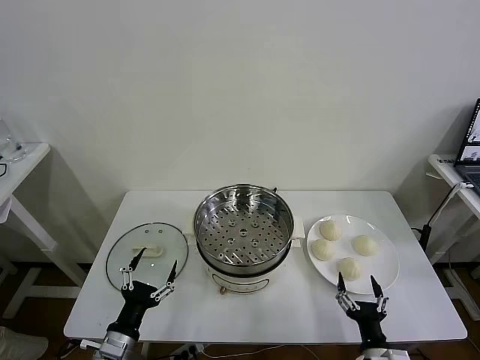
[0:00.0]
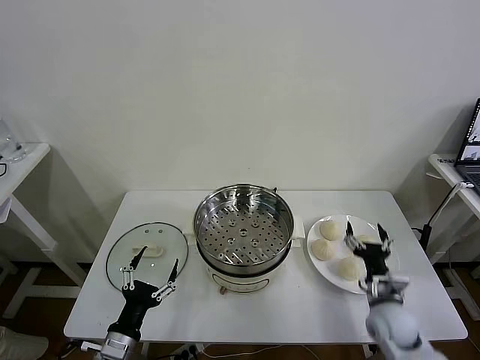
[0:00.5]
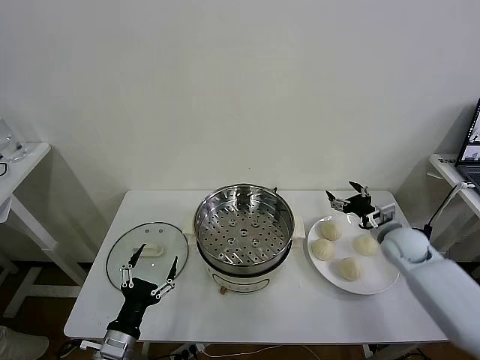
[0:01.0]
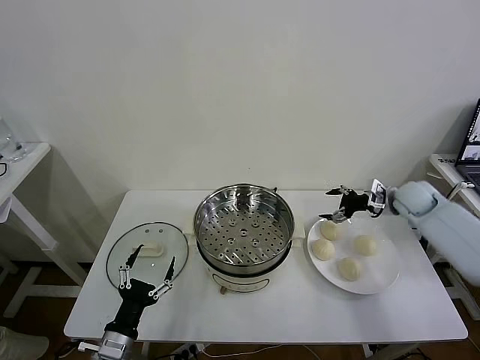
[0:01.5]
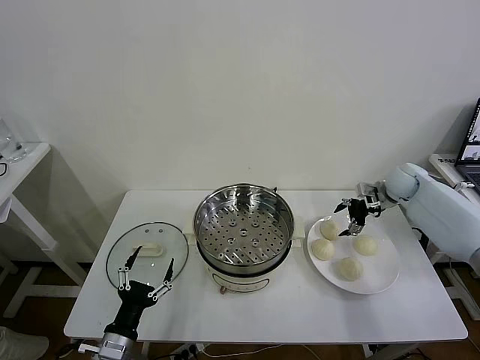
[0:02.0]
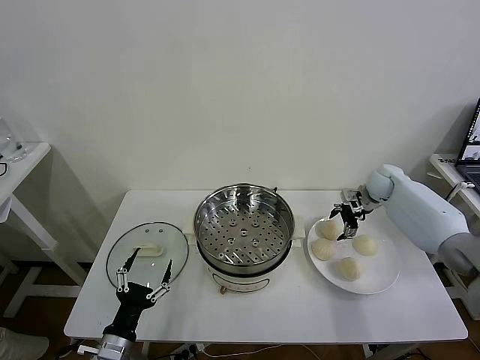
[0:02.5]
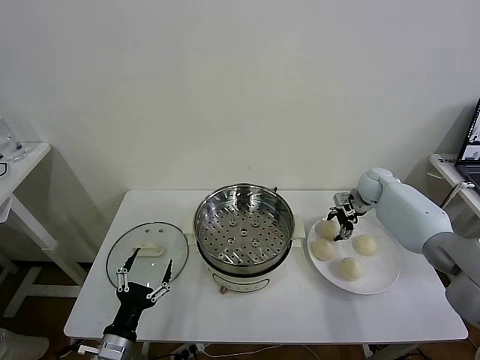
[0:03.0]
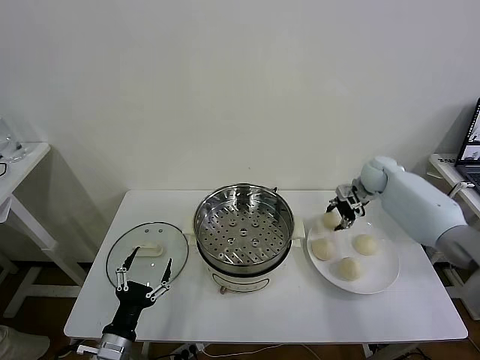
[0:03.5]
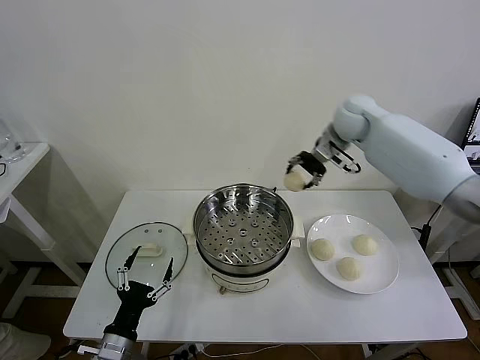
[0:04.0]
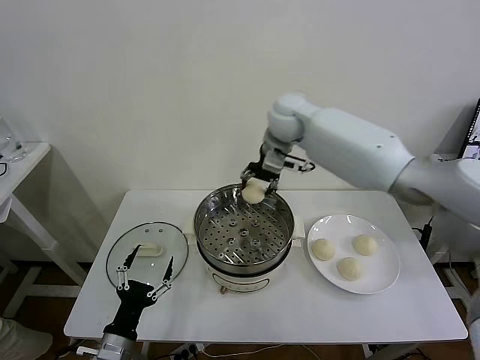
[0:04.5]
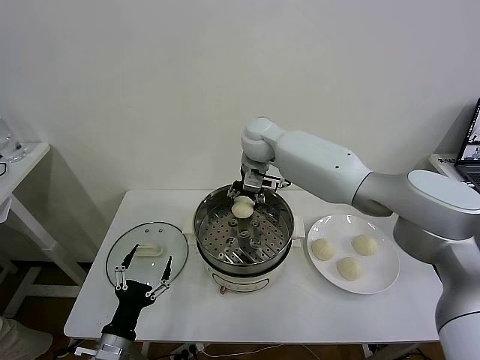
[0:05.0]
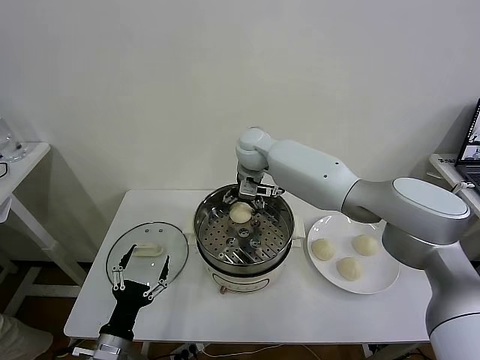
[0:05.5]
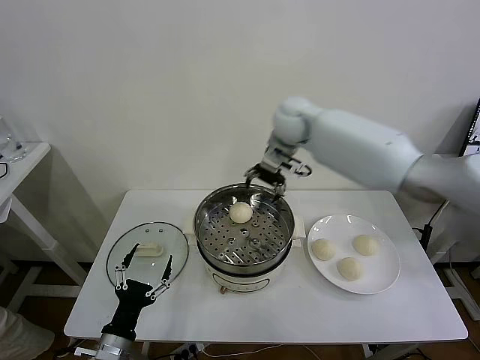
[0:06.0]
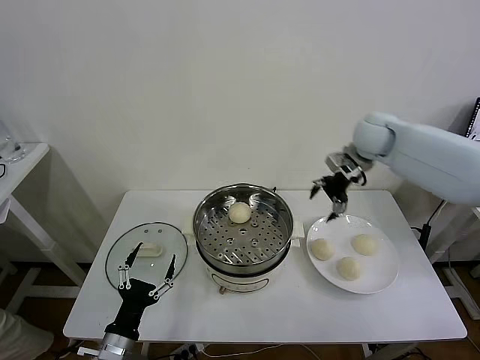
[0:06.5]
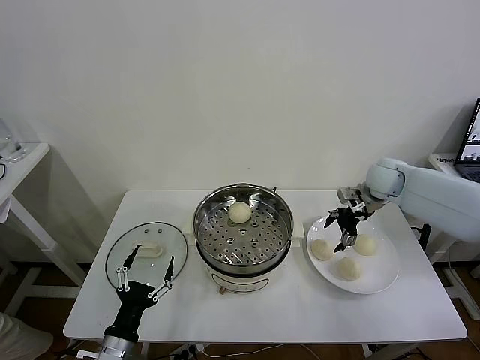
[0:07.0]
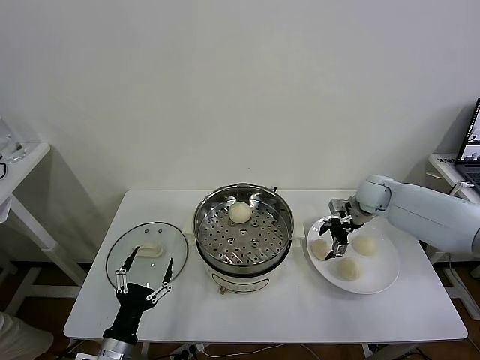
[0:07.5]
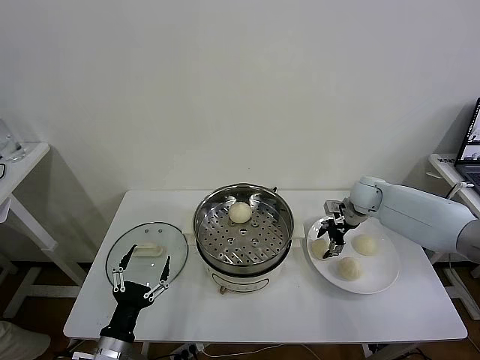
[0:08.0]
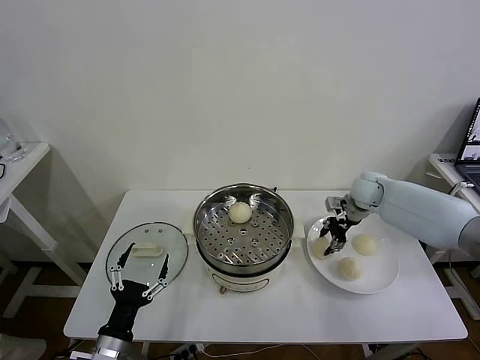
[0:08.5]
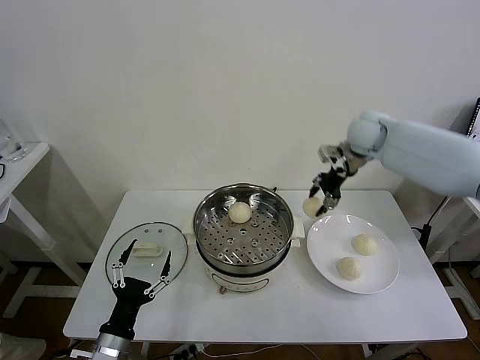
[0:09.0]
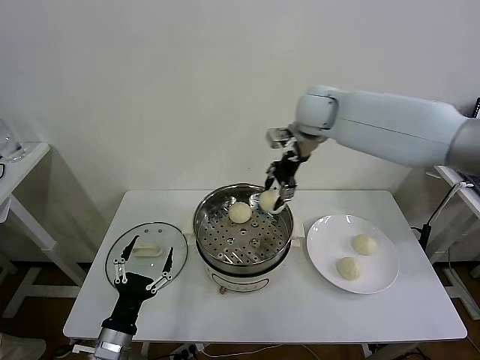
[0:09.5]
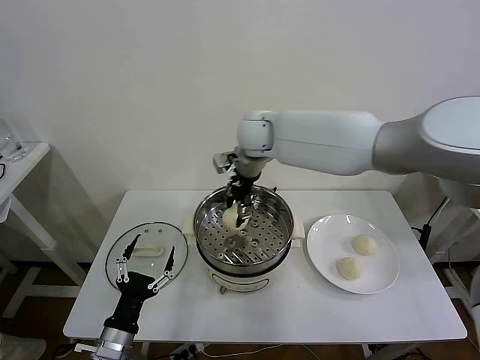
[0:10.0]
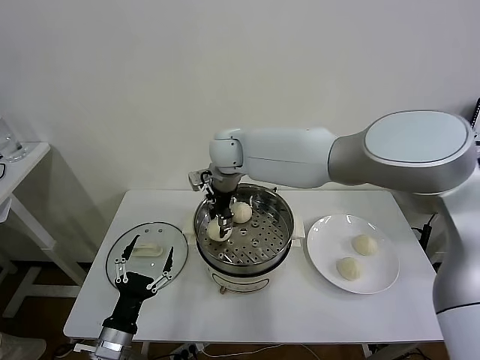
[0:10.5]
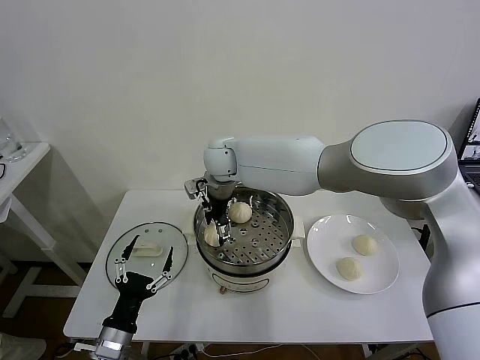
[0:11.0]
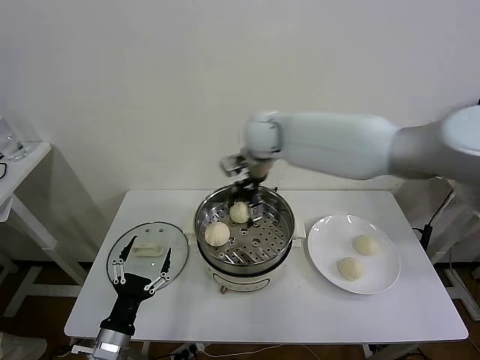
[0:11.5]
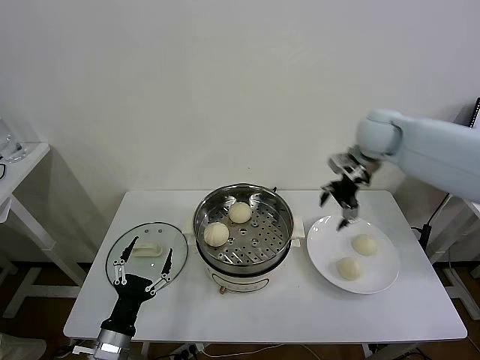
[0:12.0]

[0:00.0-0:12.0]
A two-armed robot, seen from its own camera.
Task of the whole recording: take steamed baozi put them in steamer then cover it.
Step, 0:00.0 to 0:03.0: Grasp the baozi in the plate with right gripper.
Step, 0:03.5 to 0:05.5: Place the baozi on the steamer with right gripper.
Step, 0:06.0 to 0:08.0: Grasp the baozi in the plate with right gripper.
Step, 0:08.5 to 0:11.0: Place the baozi on the steamer with right gripper.
0:02.0 to 0:04.0: The right gripper moves to the left and upward, about 25 cm, and closes up.
0:04.0 to 0:06.0: The right gripper goes roughly 10 cm to the left, and opens up.
0:06.0 to 0:08.0: The right gripper travels downward and to the right by roughly 30 cm, and closes.
0:08.0 to 0:10.0: The right gripper shifts some 35 cm to the left and upward, and closes.
0:10.0 to 0:12.0: The right gripper is displaced to the right by approximately 30 cm, and opens up.

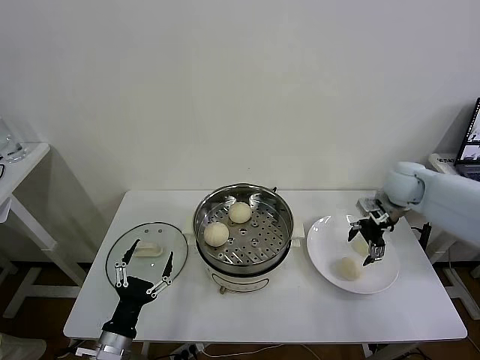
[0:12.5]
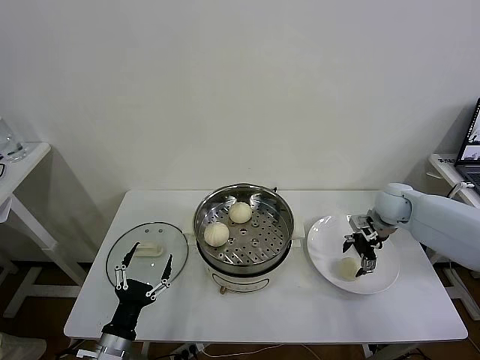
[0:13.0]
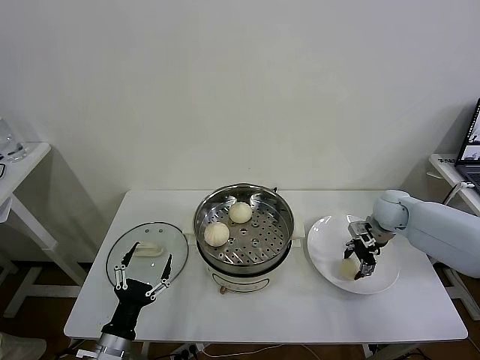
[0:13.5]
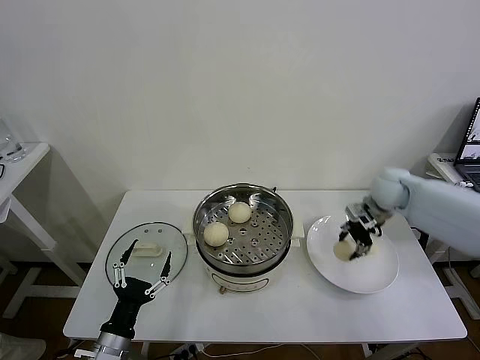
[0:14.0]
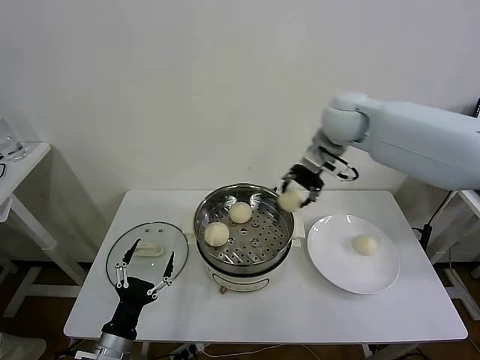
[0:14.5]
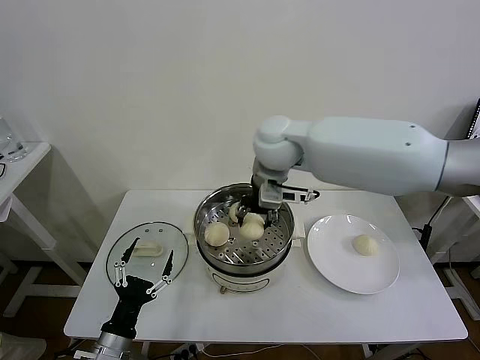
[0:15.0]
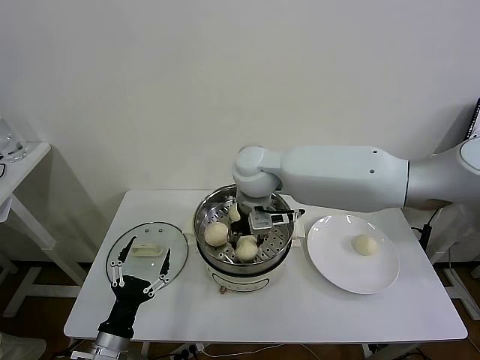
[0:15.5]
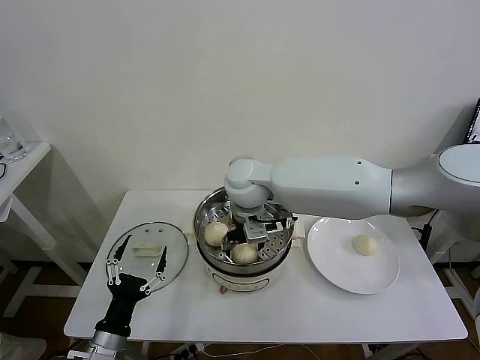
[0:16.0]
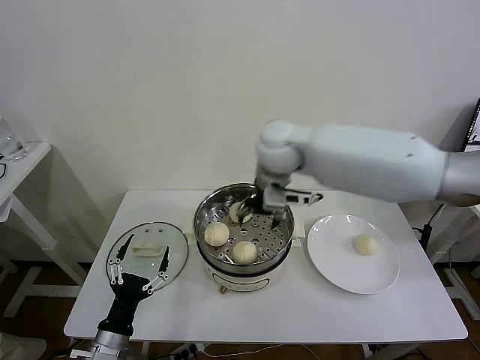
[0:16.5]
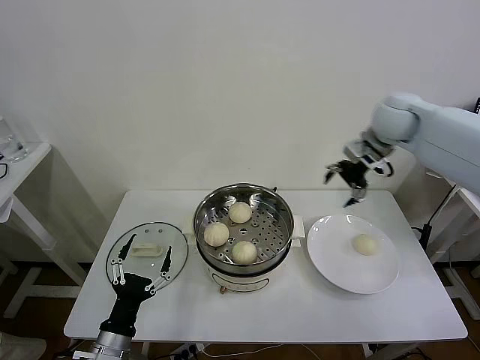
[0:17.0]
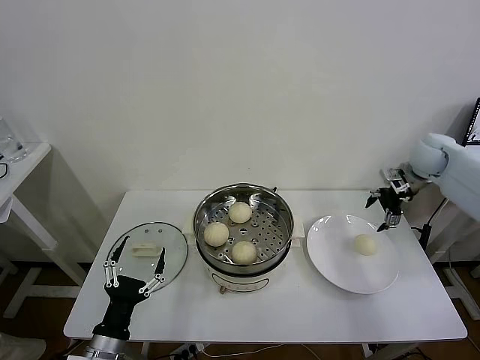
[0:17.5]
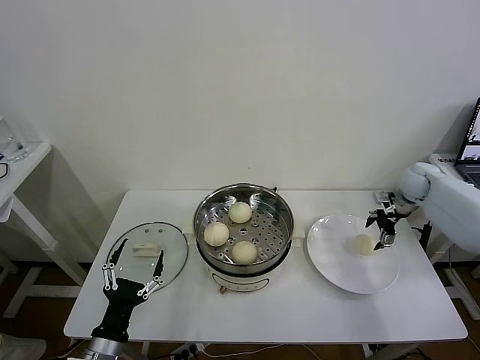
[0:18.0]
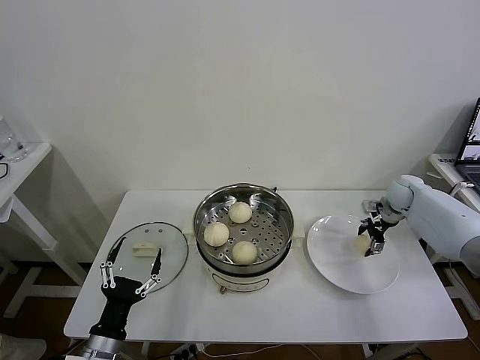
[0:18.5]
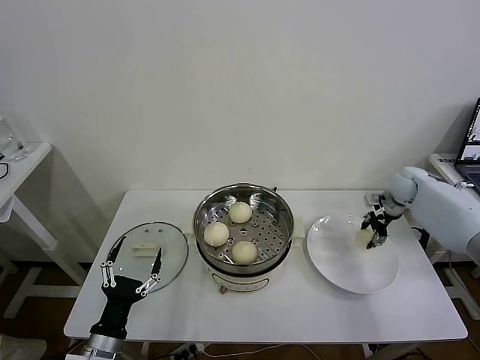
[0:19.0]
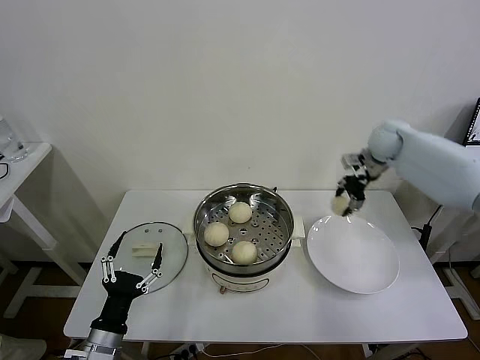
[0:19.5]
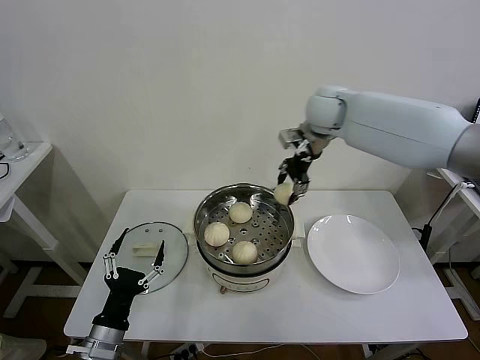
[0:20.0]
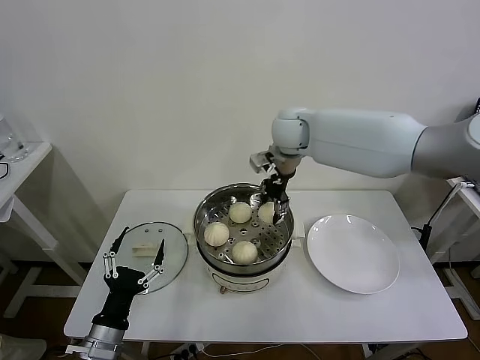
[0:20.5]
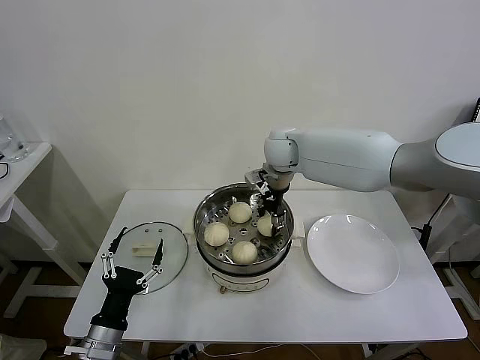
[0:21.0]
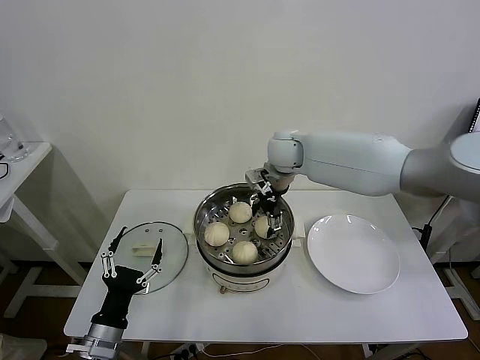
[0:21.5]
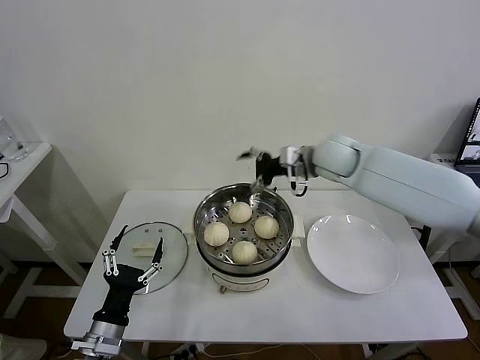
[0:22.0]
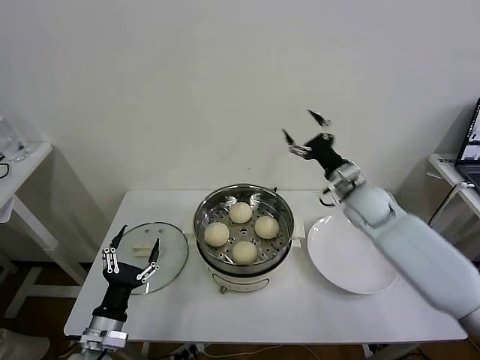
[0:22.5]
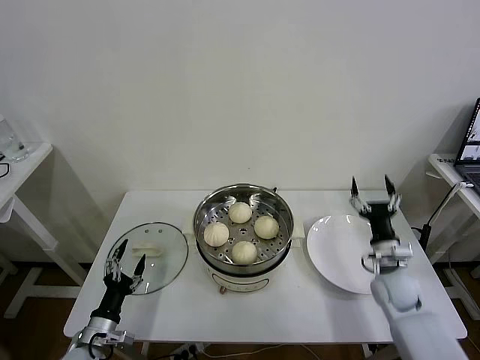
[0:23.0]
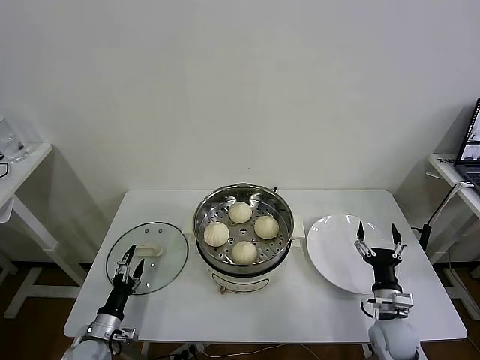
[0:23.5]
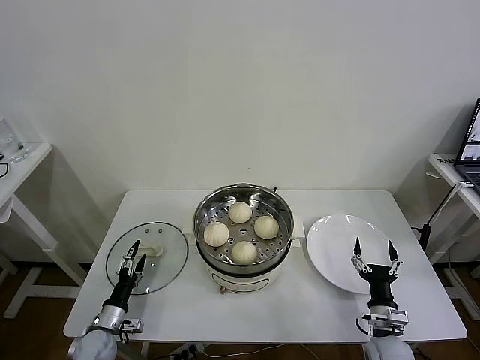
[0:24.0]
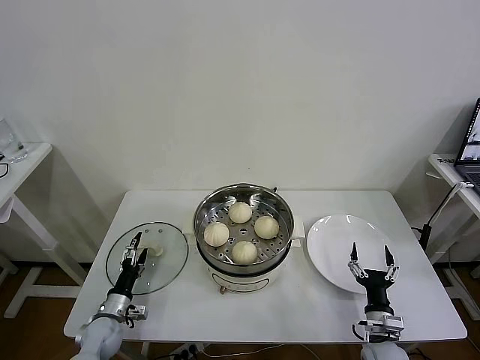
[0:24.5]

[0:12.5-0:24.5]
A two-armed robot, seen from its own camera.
Task of the whole recording: take steamed baozi put them in steamer then cover it.
Step, 0:14.0 to 0:16.0: Place the baozi on the steamer with right gripper.
Step, 0:16.5 to 0:18.5: Grasp the baozi in the plate with right gripper.
Step, 0:19.0 to 0:21.0: Place the baozi on the steamer with right gripper.
0:12.5 to 0:14.5: The right gripper goes some 25 cm to the left and upward, and closes.
0:14.5 to 0:16.5: The right gripper goes about 10 cm to the left, and opens.
0:16.5 to 0:18.5: The right gripper is displaced to the right and downward by approximately 40 cm.
0:18.5 to 0:20.5: The right gripper goes approximately 40 cm to the left and upward, and closes.
0:20.5 to 0:22.5: The right gripper heads to the right, downward and backward, covering about 25 cm, and opens up.
0:22.5 to 0:24.5: The left gripper travels downward, forward and to the left by some 20 cm; the right gripper is displaced downward and backward by approximately 35 cm.

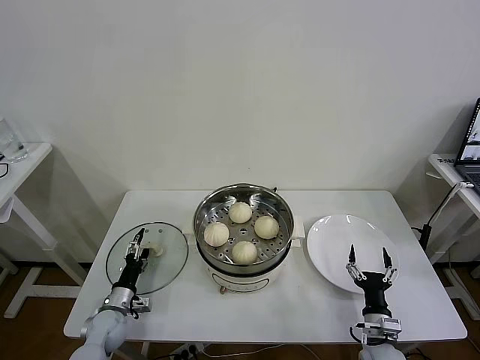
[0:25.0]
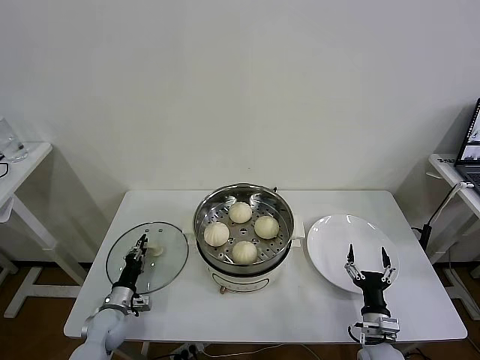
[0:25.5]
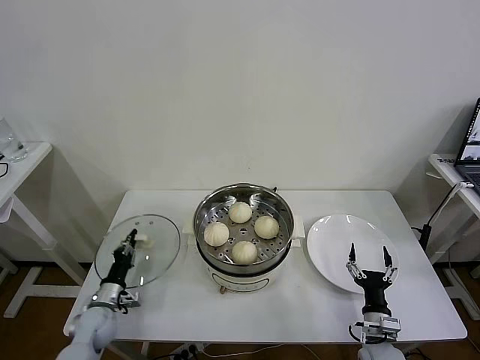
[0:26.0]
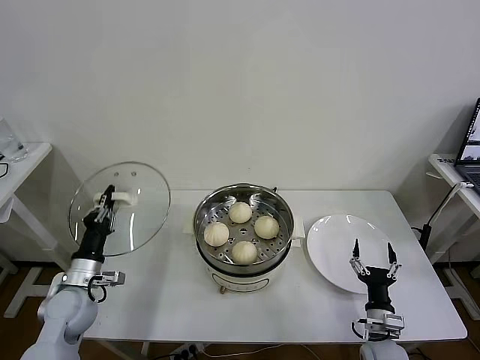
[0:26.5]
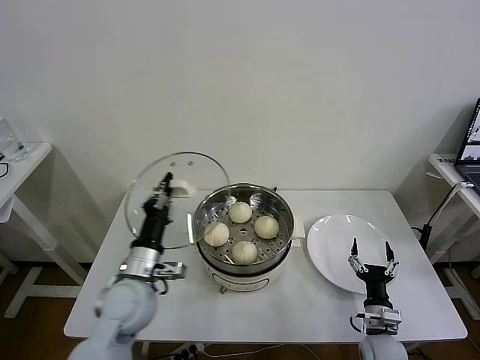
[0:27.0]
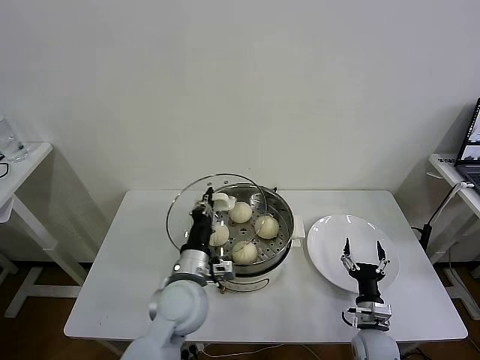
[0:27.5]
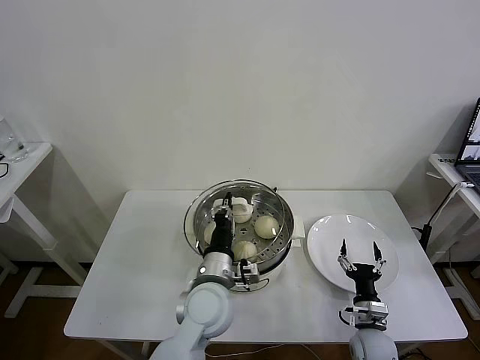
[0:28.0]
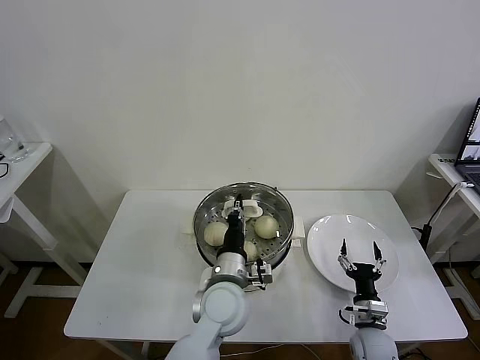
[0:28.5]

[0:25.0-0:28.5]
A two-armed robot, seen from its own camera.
Task of the whole recording: take steamed baozi put them in steamer then cover it.
0:25.0 to 0:27.0: The left gripper is displaced upward and to the right by roughly 25 cm, and closes its fingers.
0:27.0 to 0:28.5: The left gripper shifts about 20 cm to the right.
